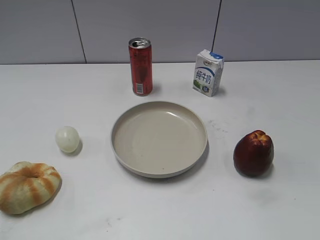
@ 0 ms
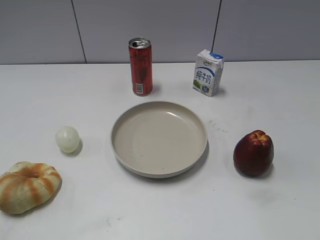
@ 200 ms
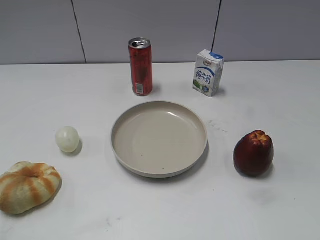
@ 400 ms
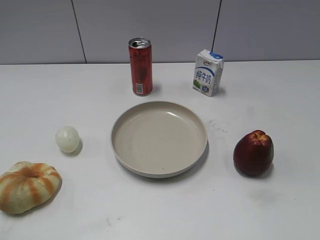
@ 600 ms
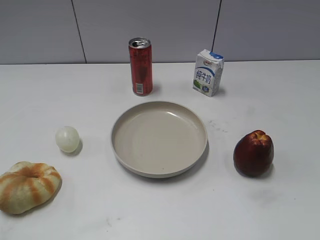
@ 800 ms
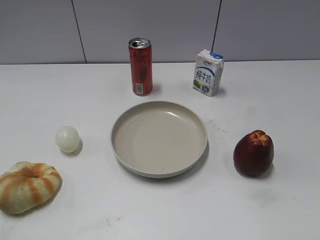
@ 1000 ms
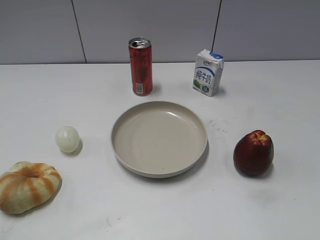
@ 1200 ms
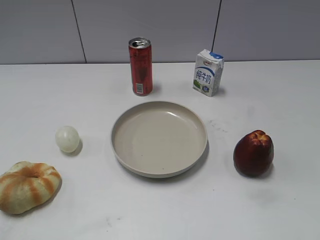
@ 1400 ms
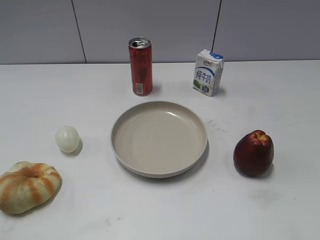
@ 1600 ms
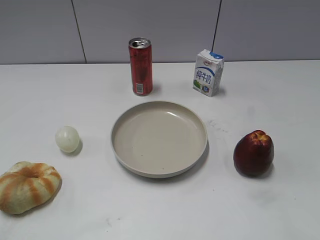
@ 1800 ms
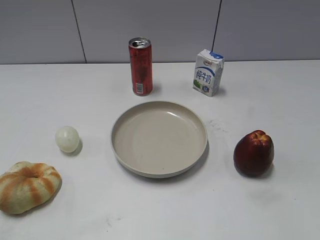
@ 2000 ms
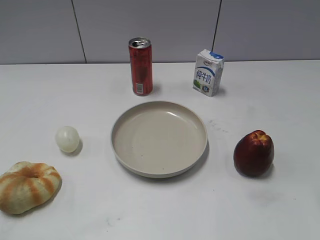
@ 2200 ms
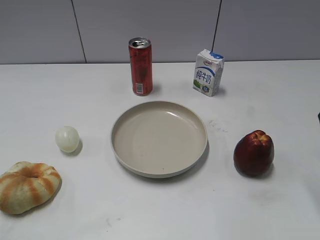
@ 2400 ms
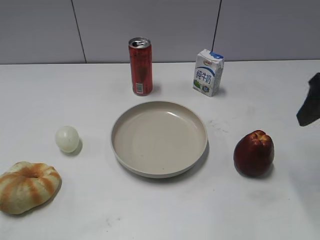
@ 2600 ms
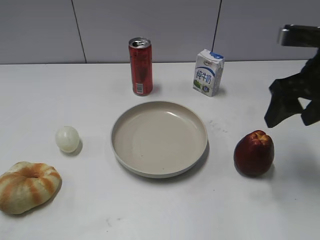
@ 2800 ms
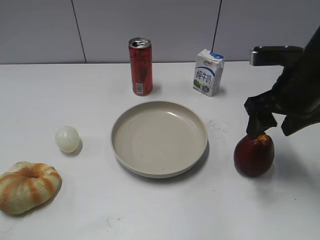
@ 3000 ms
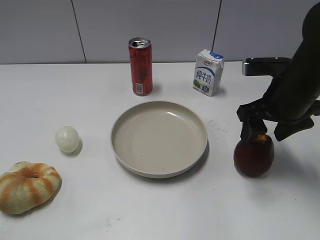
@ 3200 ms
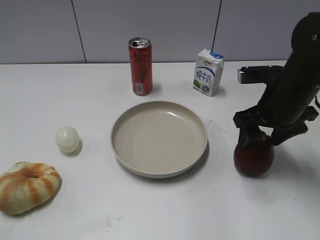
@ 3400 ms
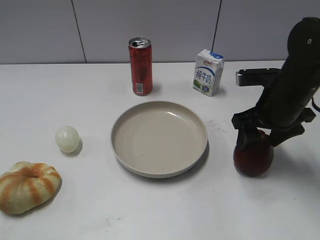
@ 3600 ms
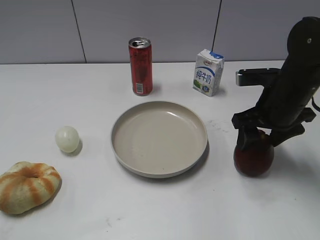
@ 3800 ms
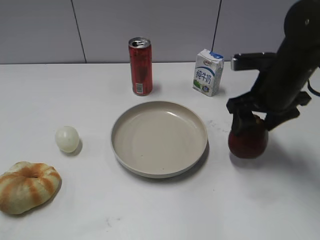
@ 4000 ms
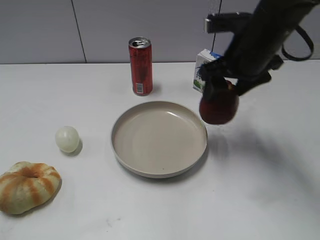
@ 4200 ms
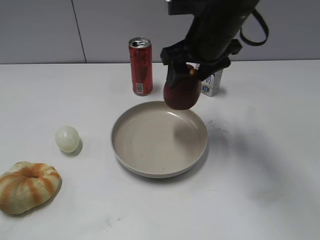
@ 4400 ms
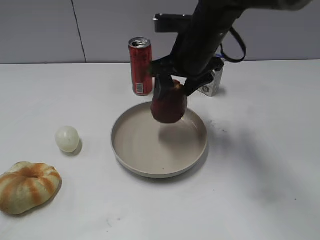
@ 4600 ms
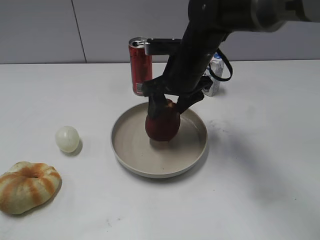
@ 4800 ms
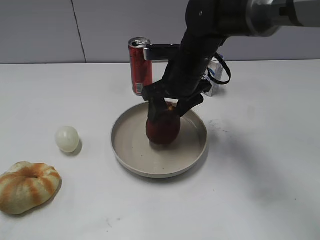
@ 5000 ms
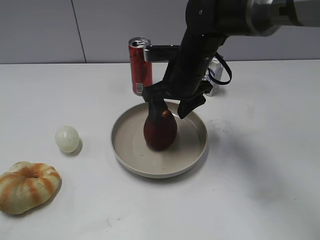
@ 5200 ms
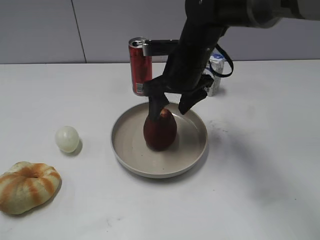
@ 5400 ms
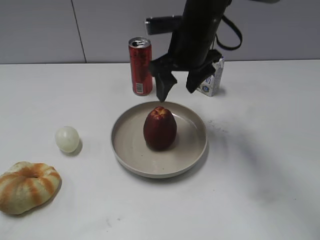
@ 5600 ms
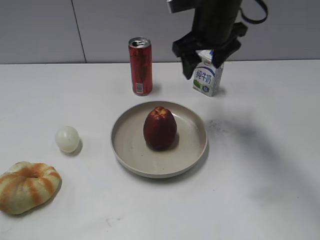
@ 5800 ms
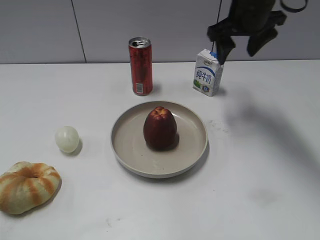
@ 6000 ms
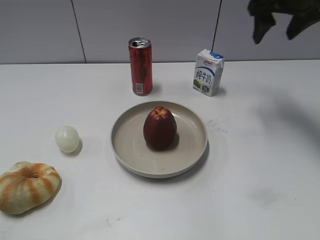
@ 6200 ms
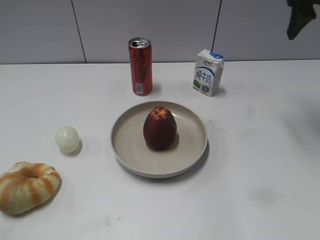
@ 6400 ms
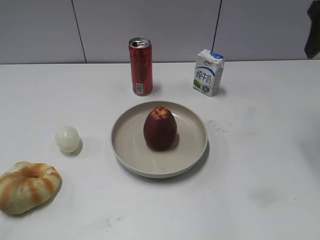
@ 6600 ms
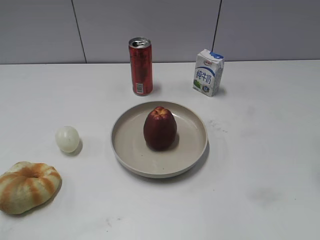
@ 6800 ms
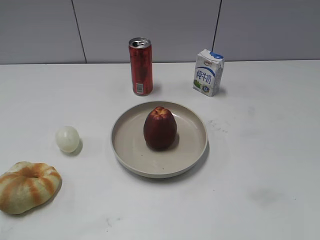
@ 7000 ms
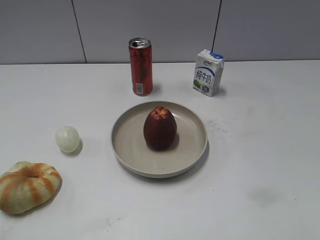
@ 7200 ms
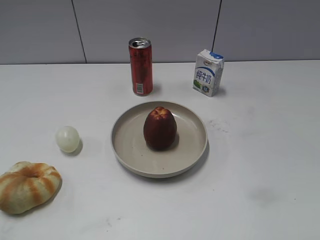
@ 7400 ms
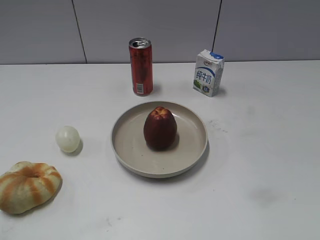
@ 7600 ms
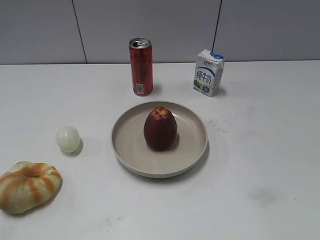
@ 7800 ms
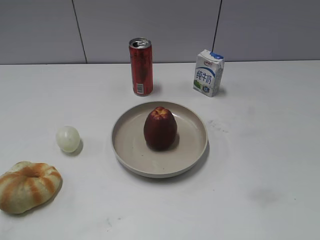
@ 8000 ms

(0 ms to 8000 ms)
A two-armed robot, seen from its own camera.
Step, 2400 ms - 3800 ms: Grasp the apple with right gripper.
Step, 4000 ms - 5400 ms: Place the apple on the plate with right gripper.
1600 ms - 3200 ms: The right gripper heads forward and downward, covering roughly 25 cm.
3200 ms - 4800 ms: The right gripper moves to the left and forward, about 15 cm.
4800 ms - 6400 ms: The right gripper goes roughly 25 cm to the right and upward.
6400 ms - 8000 ms: The right gripper travels backward by about 40 cm.

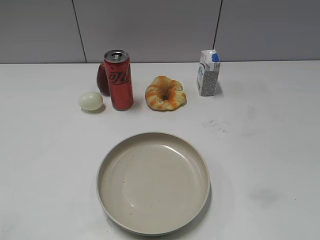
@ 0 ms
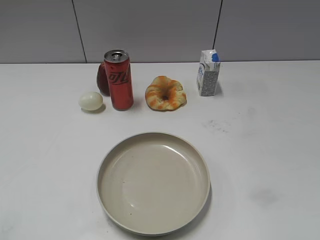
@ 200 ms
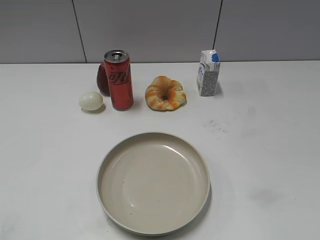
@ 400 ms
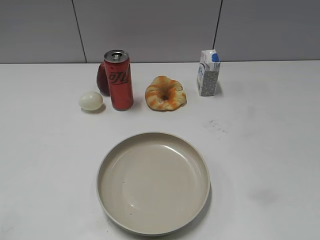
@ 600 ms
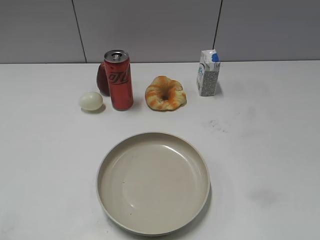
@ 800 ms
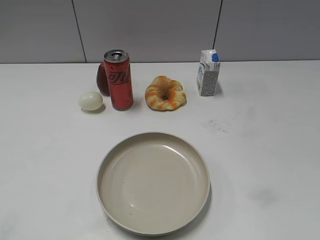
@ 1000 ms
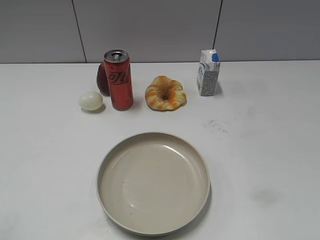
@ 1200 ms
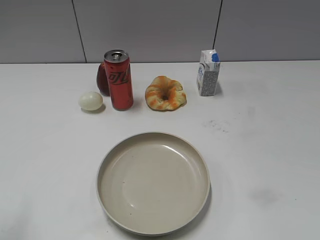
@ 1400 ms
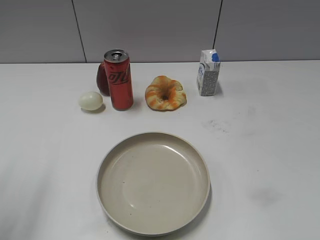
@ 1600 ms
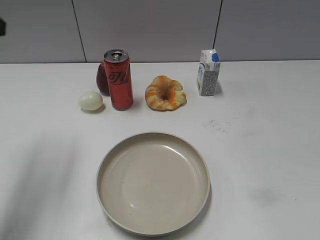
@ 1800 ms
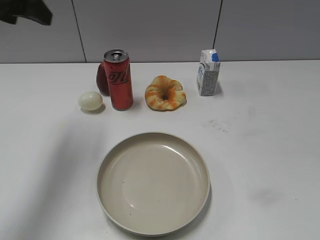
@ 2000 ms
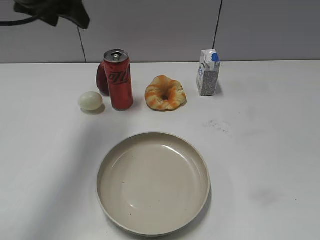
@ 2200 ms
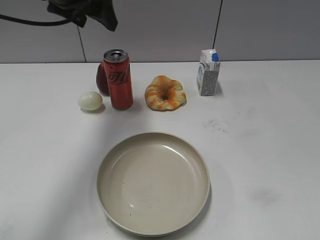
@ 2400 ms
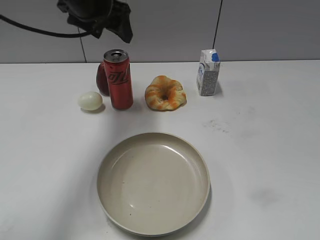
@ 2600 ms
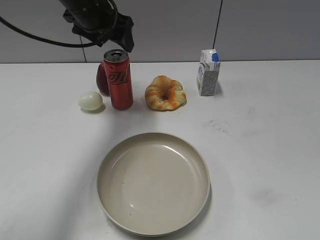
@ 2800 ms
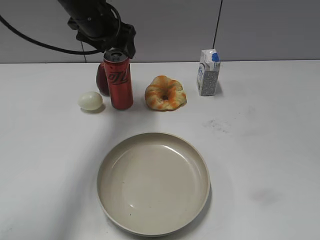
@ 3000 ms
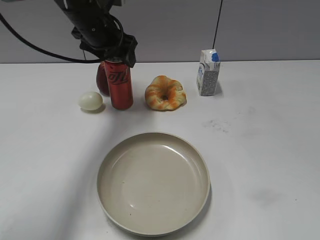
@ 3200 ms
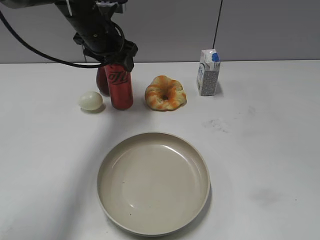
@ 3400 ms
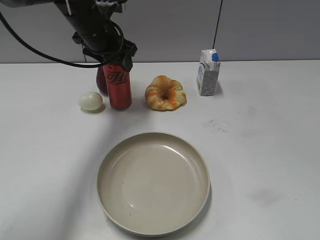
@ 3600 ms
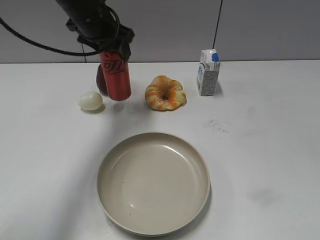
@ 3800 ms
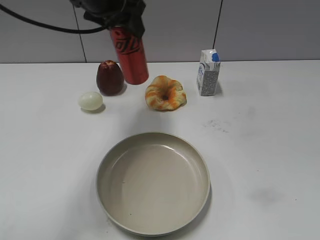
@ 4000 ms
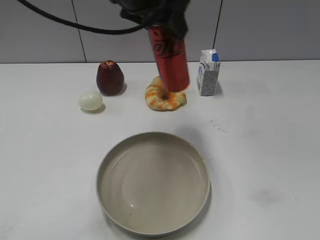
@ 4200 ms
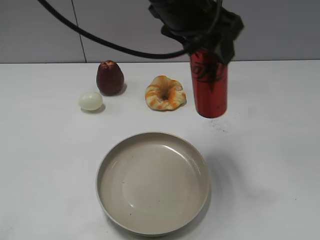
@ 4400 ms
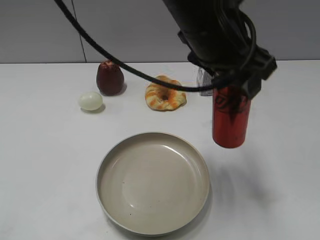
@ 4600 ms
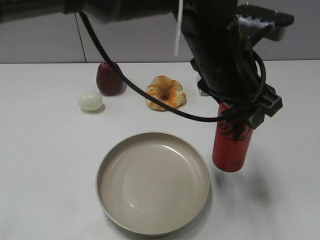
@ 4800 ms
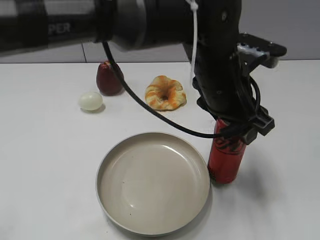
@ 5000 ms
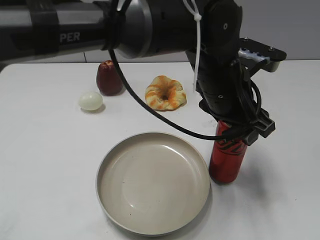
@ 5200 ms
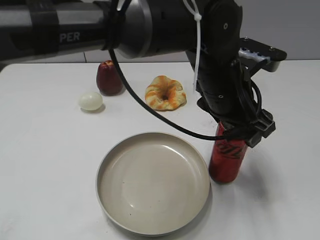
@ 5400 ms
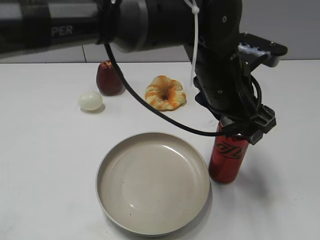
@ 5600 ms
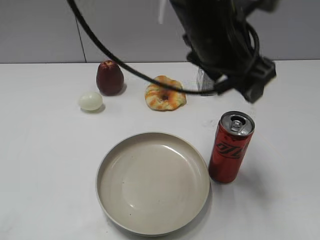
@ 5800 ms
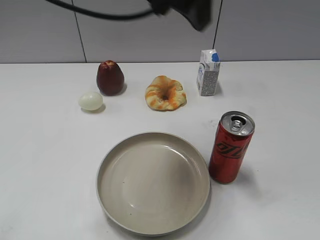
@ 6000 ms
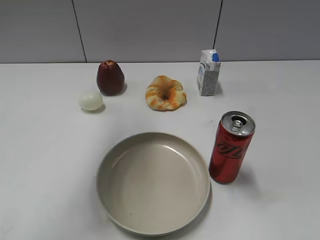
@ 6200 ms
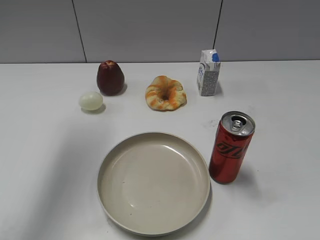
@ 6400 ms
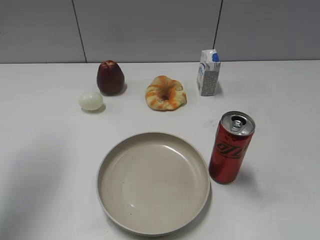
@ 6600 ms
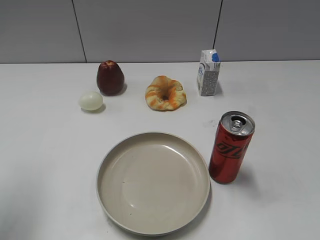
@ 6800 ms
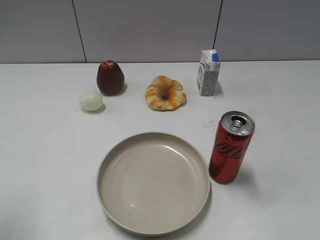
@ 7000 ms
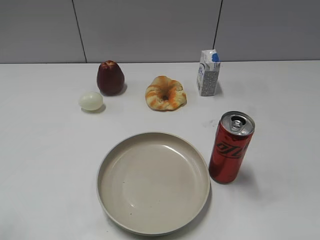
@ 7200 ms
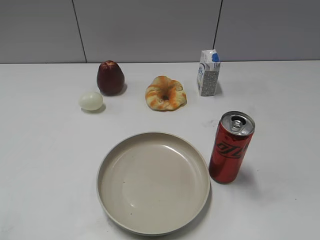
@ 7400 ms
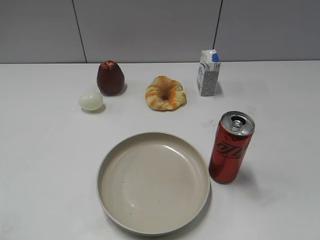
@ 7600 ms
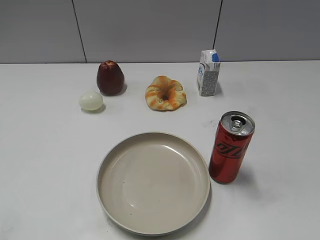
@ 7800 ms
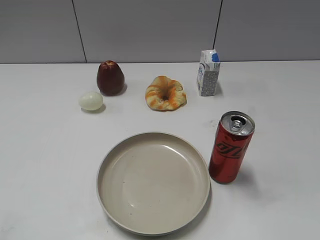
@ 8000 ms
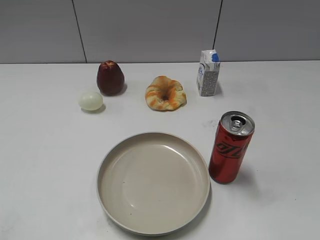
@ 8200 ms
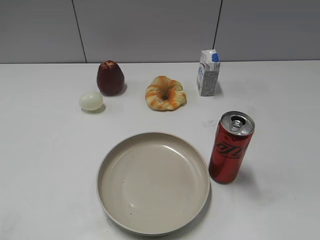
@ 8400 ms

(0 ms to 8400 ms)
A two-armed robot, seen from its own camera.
Step, 1000 ms - 3600 ms: Grasp the cola with left gripper.
Step, 3800 ms - 5600 ms: Place the cola on the table with left gripper.
1400 ms - 2800 ms: The left gripper goes approximately 40 cm forward and to the right, and opens.
2800 ms - 4200 ms: The left gripper shifts some 15 cm backward, to the right and upward, and closes up.
4200 ms - 5600 ms: The left gripper is displaced to the right, downward and backward by approximately 15 cm, and opens its fingers.
5600 ms - 7000 ms: The left gripper travels to the left by approximately 40 cm, and closes its fingers.

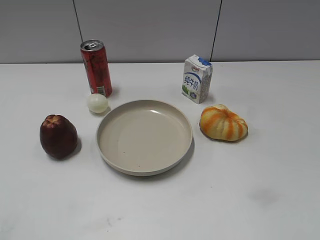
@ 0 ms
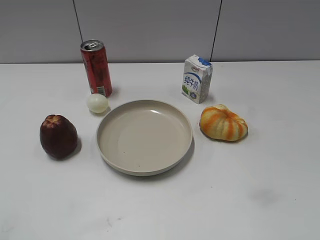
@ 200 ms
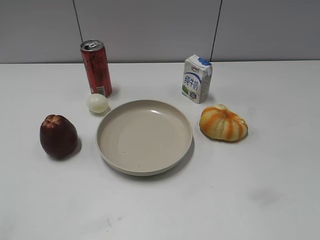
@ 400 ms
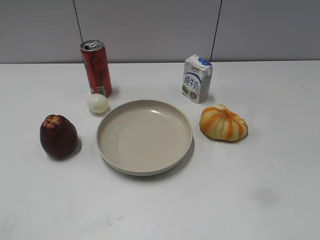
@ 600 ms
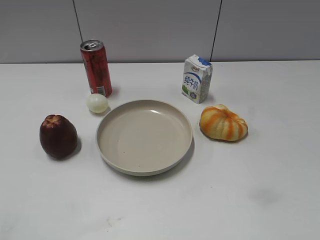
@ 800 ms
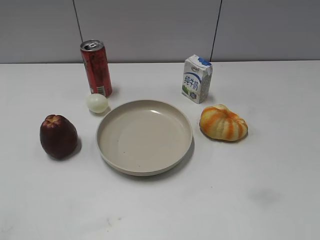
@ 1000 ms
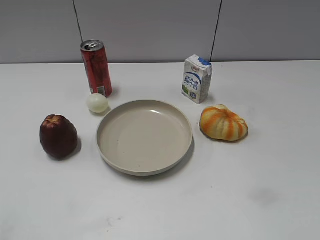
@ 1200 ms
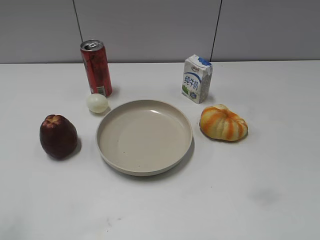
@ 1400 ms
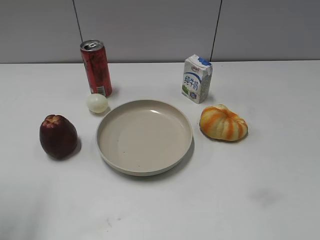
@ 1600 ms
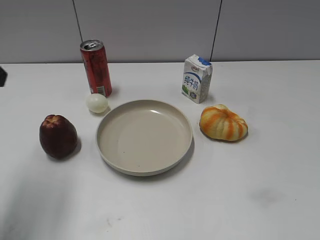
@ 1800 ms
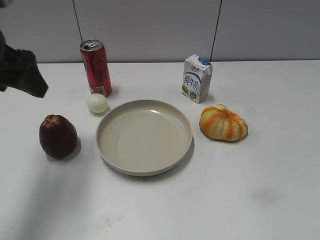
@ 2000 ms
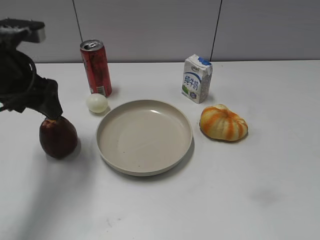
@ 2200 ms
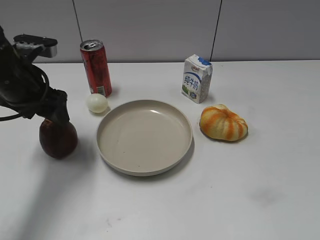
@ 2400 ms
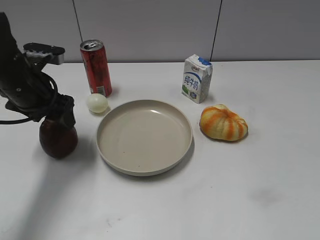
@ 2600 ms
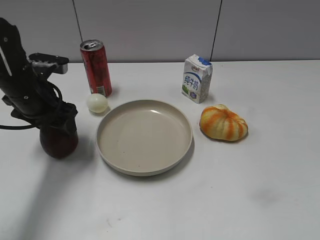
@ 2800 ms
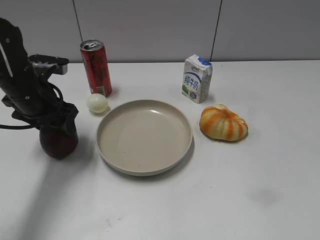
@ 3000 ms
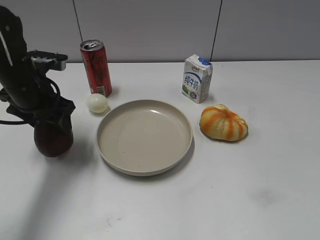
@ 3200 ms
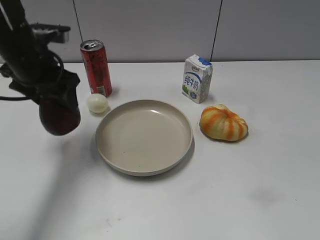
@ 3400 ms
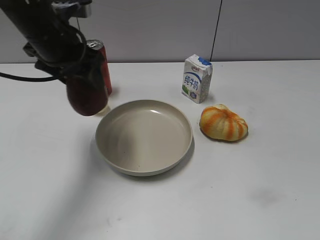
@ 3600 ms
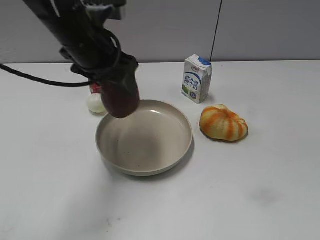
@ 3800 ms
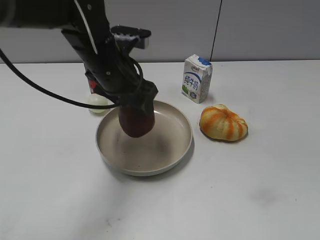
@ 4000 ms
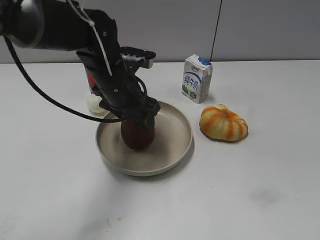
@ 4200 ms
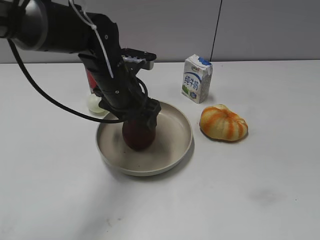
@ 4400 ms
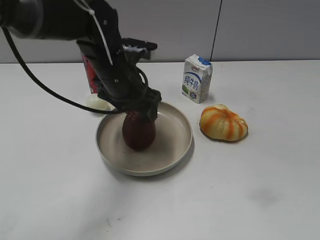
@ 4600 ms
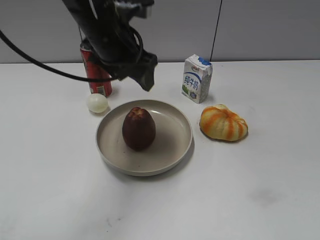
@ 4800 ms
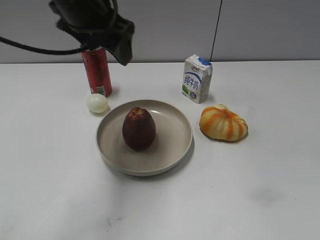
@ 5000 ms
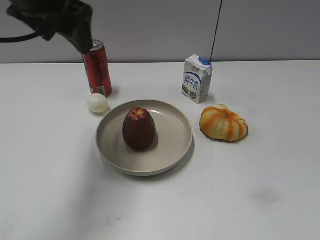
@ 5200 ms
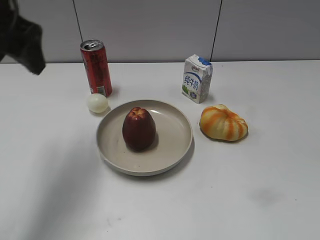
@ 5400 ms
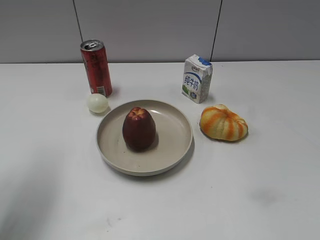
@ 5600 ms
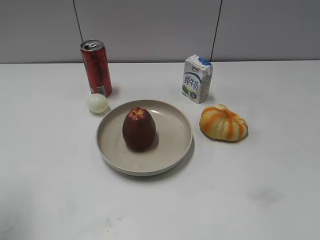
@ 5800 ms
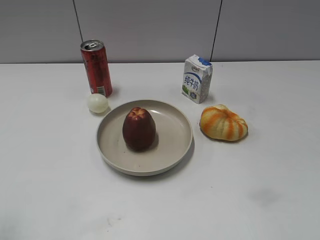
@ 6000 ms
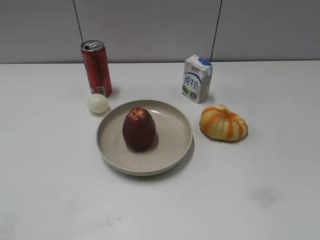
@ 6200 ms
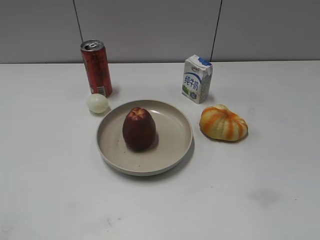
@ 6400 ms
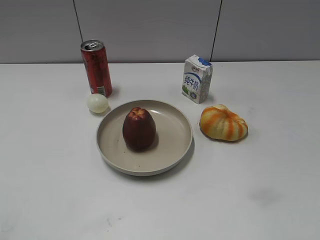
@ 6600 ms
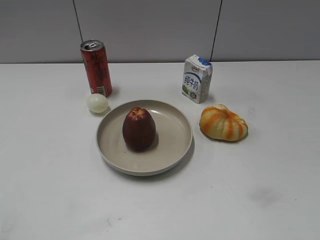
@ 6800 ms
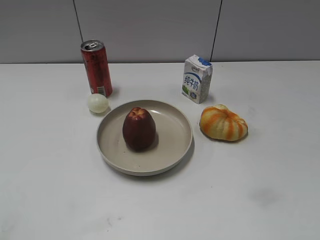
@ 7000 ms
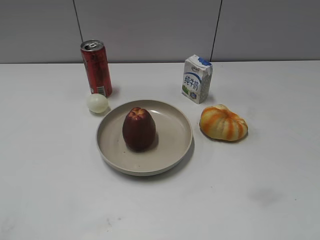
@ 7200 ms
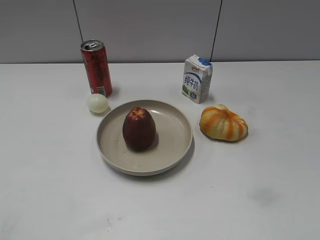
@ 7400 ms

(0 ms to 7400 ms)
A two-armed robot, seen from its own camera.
Step, 1000 ms - 2800 ms: Grasp the apple with left gripper.
Step, 3200 ms - 4600 ms: Place the apple on the plate with left gripper.
1400 ms - 3000 ms: The left gripper shifts some 30 cm forward, downward and to the right, and closes its fingers.
3000 ms - 4400 ms: The left gripper travels to the right by roughly 15 cm, and opens its fingers.
4400 ms - 6000 ms: The left gripper goes about 35 cm to the left, backward and upward, and closes its fingers.
